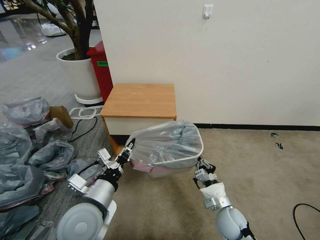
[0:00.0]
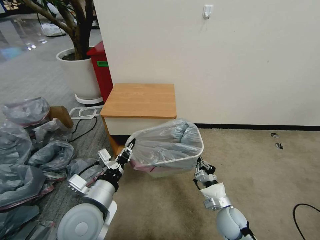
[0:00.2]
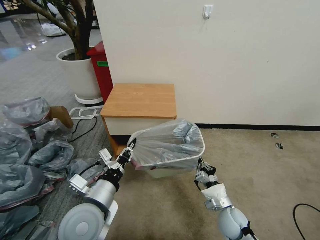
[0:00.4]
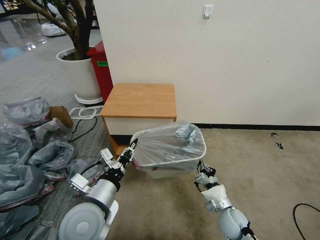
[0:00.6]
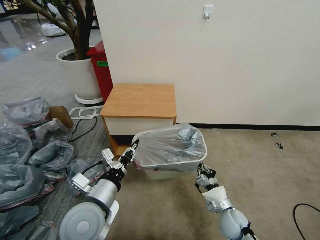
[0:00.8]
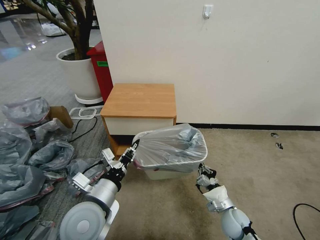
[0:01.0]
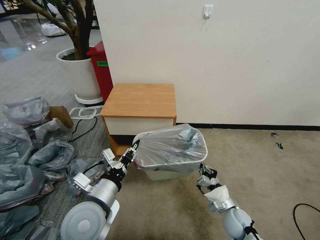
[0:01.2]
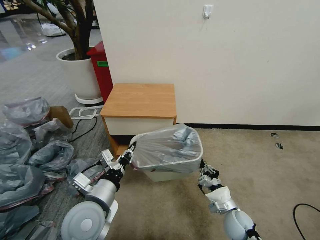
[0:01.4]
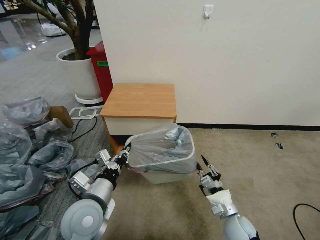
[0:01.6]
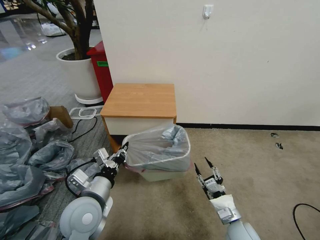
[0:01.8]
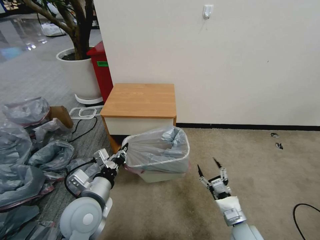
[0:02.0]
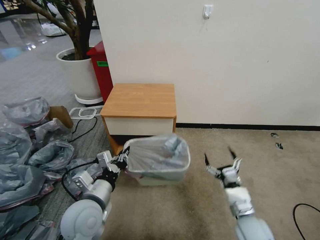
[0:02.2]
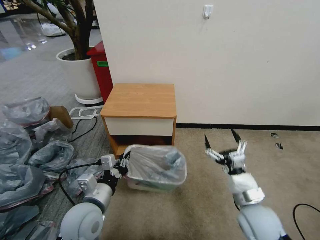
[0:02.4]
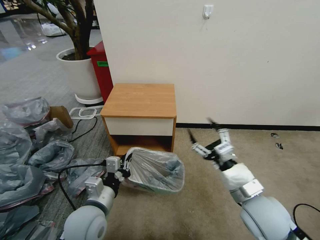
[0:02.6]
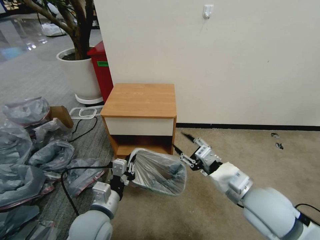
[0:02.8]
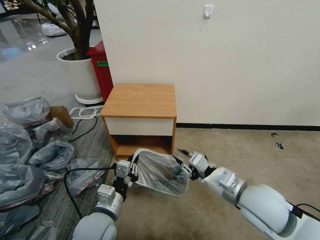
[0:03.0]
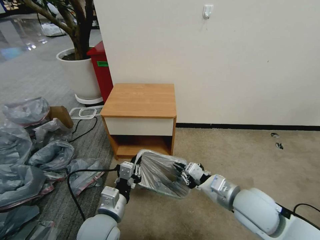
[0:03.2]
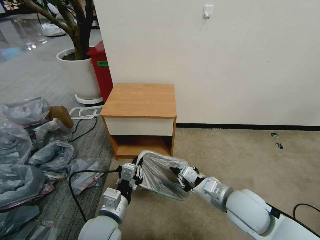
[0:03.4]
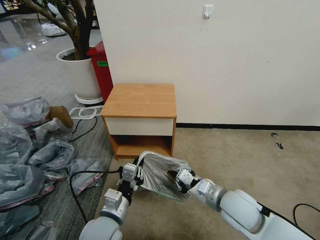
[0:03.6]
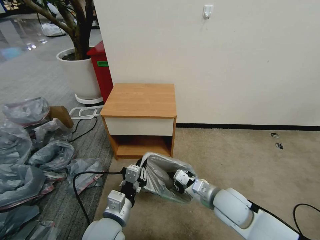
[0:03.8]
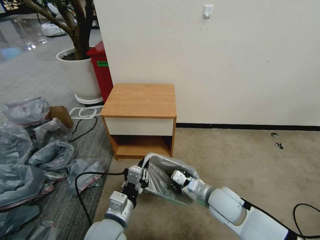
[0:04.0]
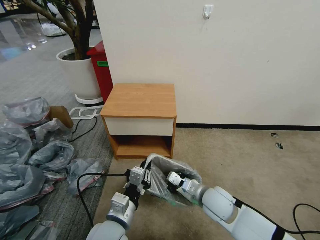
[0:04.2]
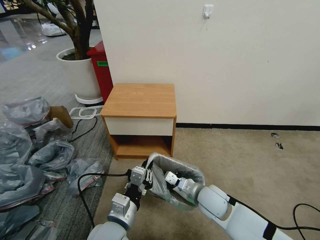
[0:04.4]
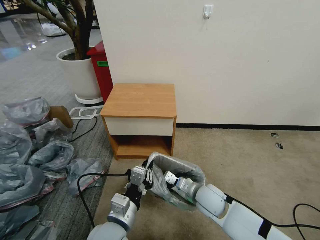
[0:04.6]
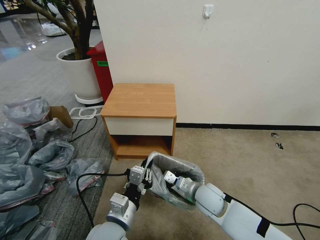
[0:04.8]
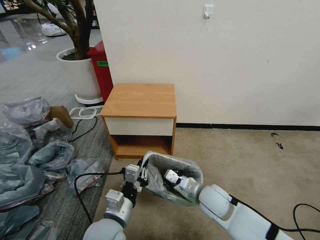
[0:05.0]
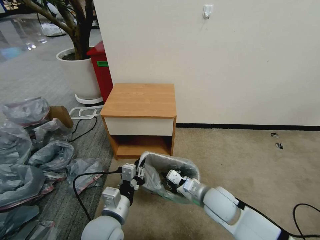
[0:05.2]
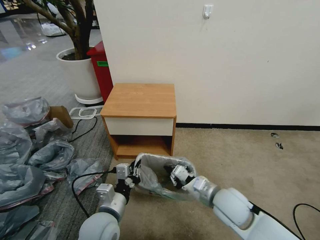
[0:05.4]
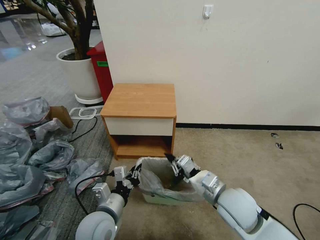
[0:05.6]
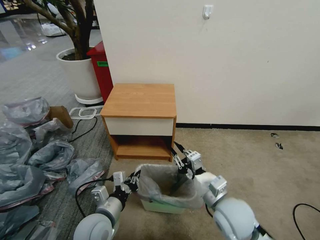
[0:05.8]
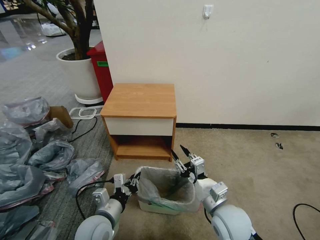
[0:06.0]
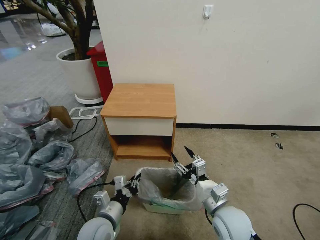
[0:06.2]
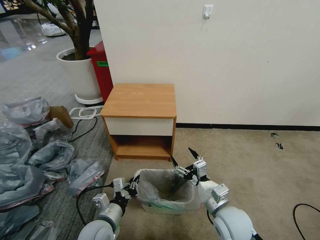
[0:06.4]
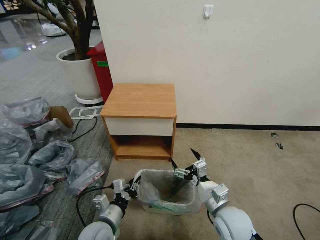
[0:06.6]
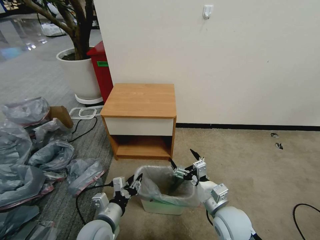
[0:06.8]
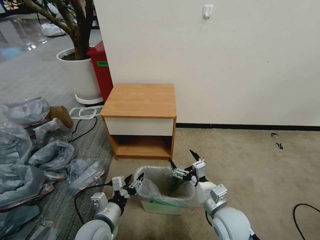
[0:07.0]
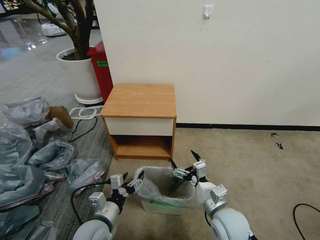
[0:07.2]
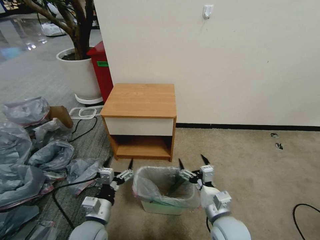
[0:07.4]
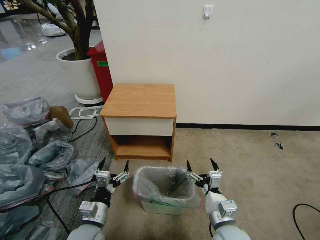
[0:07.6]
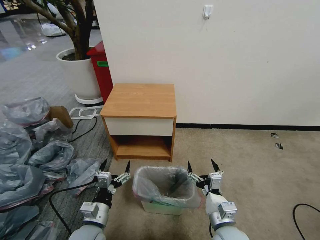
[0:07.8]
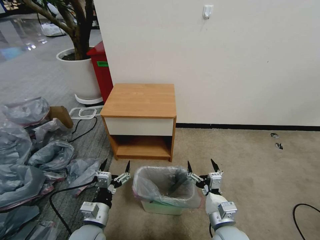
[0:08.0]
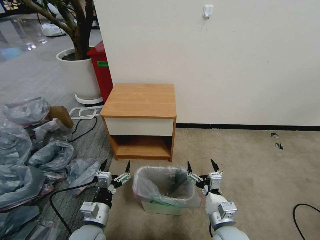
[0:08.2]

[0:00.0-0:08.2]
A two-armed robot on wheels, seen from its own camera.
Task of the whole recording: Pick up the garbage bag from the table and place it over the trash can.
0:00.0 to 0:01.6: There are only small adjustments of the grippers.
0:01.6 to 0:03.2: The right gripper goes some 20 cm upward, and opens, then closes once more. Meanwhile the left gripper shifts by approximately 5 cm.
0:03.2 to 0:05.0: The right gripper moves downward, to the left and forward, roughly 15 cm.
0:05.0 to 0:06.6: The right gripper travels backward by some 5 cm, goes upward and returns, roughly 10 cm each way, and opens. Meanwhile the left gripper shifts some 10 cm downward and to the left.
0:06.6 to 0:08.2: The left gripper opens, while the right gripper ends up about 5 cm from where it was.
